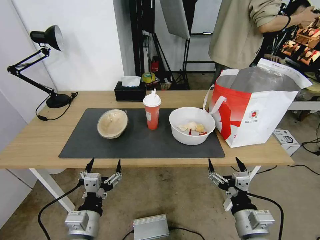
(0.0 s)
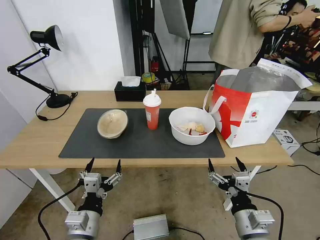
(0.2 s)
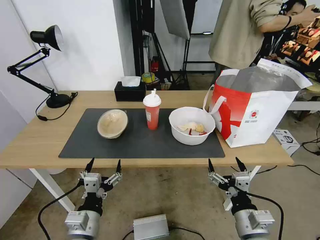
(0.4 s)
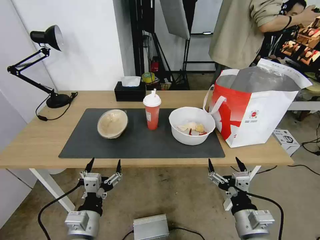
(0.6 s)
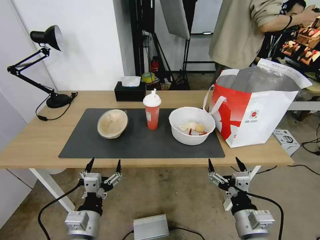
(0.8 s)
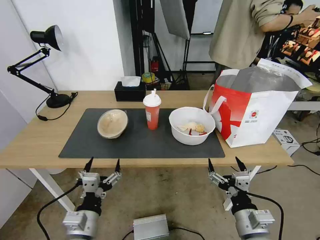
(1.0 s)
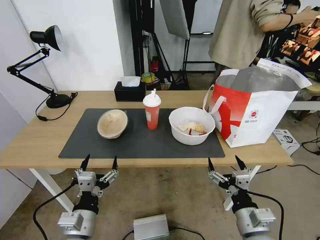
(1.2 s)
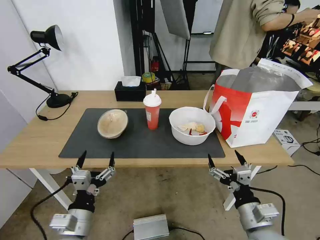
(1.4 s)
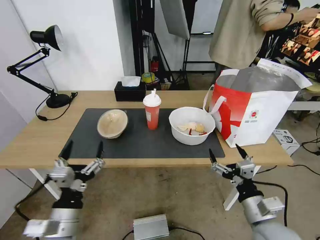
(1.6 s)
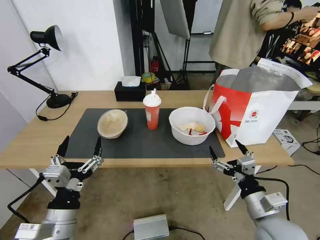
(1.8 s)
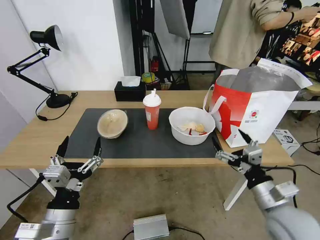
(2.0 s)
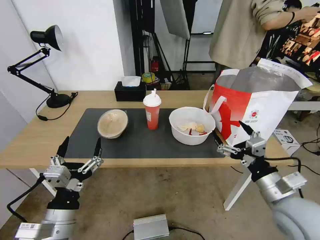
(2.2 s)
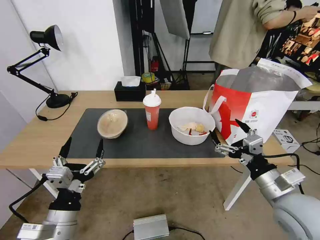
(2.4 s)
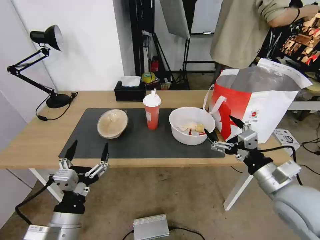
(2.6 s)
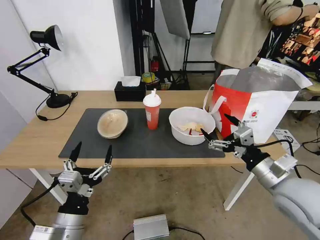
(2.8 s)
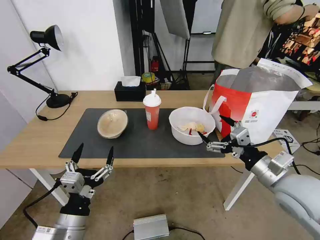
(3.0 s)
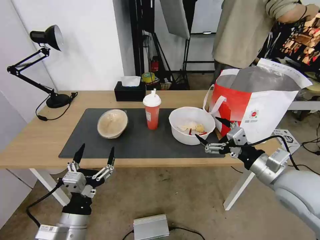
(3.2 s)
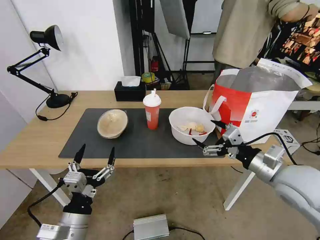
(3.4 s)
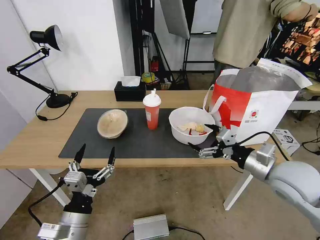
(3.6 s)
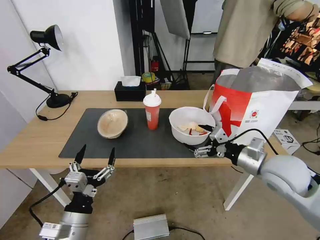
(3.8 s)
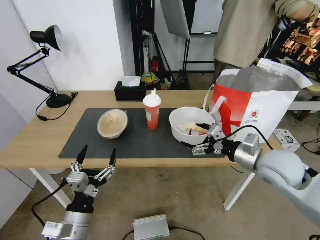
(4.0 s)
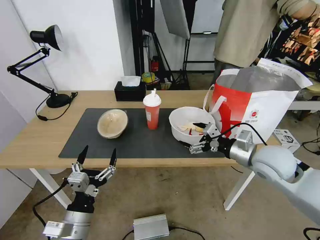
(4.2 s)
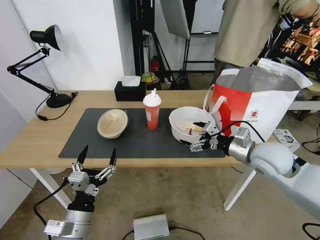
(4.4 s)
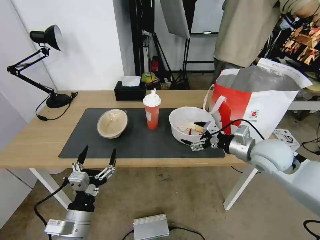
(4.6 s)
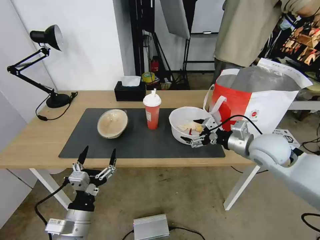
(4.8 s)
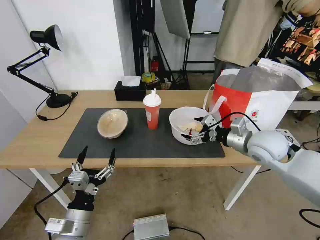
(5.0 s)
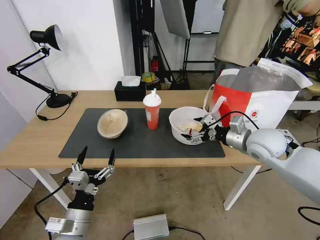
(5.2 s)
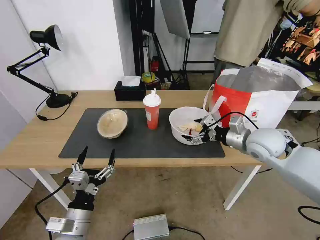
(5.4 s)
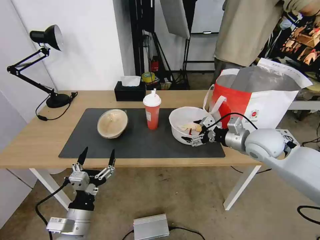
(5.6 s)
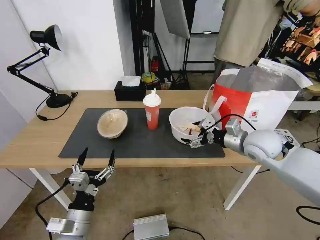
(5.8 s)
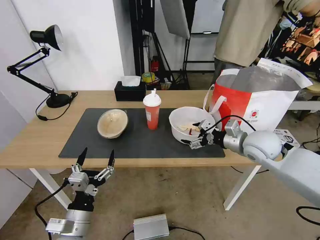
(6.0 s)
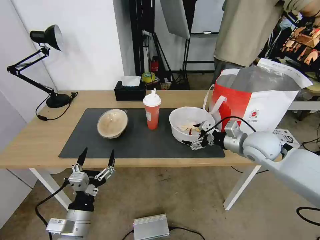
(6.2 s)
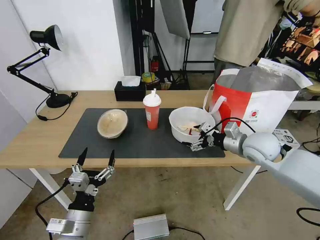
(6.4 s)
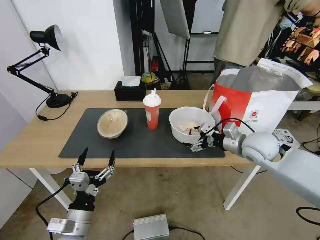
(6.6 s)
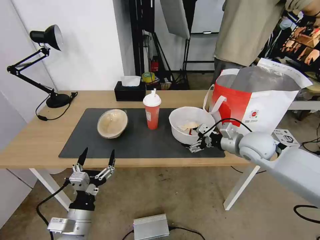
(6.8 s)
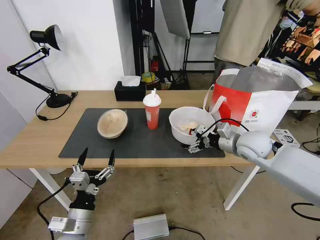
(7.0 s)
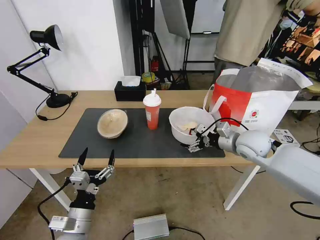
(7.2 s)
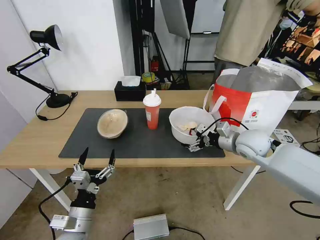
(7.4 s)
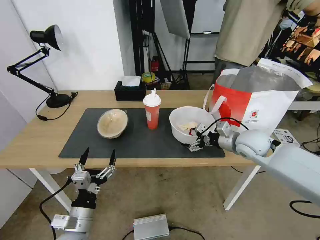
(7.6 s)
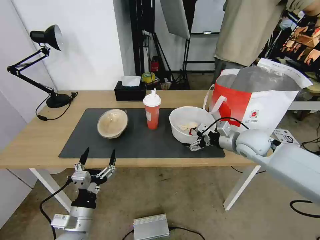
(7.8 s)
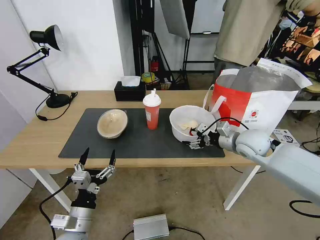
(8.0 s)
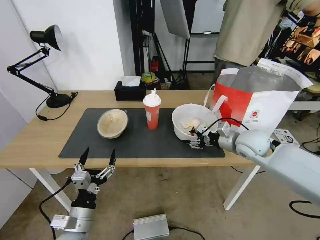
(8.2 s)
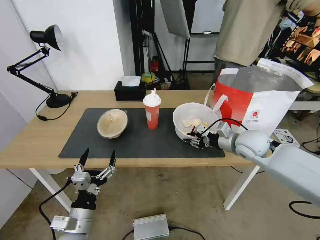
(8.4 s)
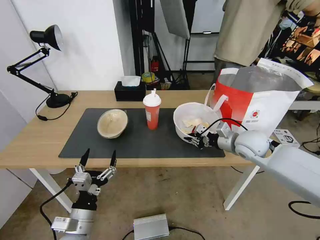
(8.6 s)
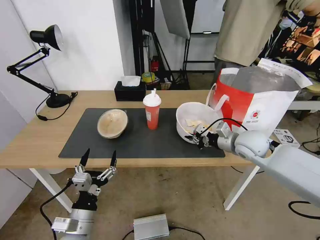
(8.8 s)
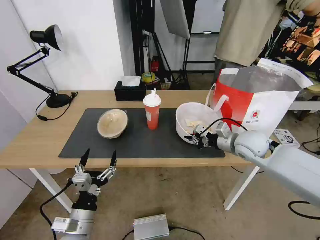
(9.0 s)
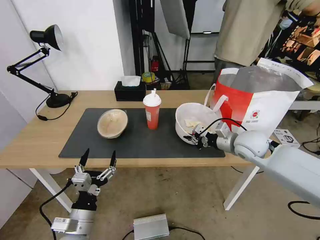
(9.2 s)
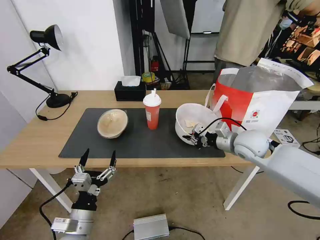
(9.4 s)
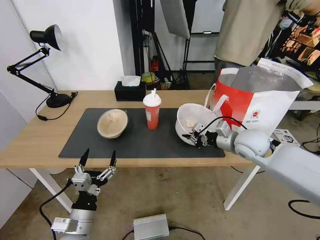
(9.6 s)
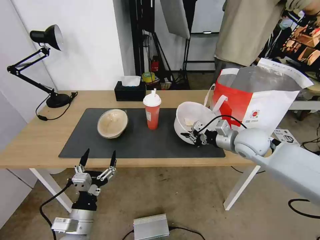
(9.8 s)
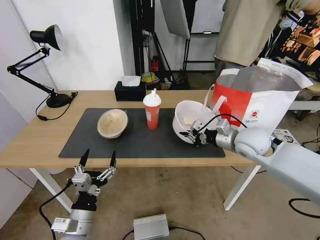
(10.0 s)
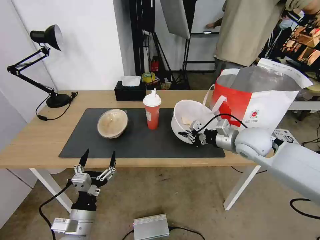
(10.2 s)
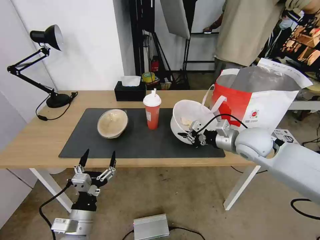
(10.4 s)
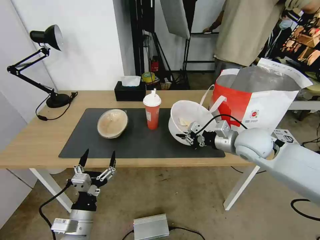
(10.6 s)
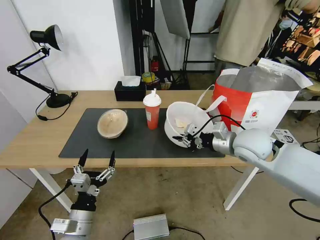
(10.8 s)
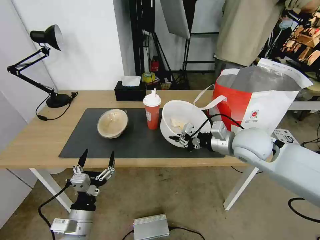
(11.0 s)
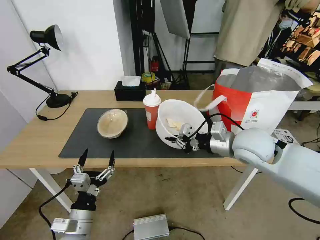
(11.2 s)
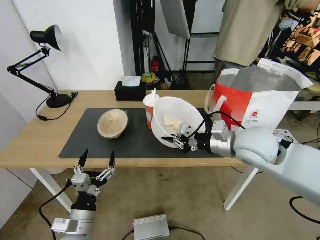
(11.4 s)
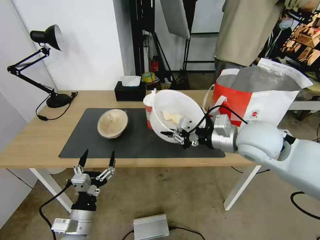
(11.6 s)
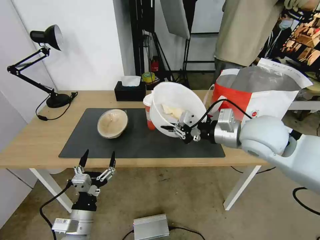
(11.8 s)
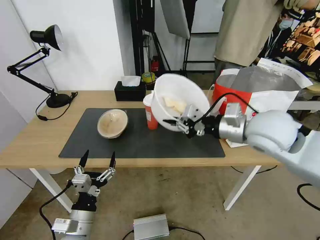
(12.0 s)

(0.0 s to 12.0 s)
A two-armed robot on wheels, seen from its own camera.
Task of the whole recording: Pick up the trash from the table and place it into the takeout bag.
1.6 s - 3.0 s: The right gripper shifts about 10 cm upward and forward.
3.0 s - 4.4 s: The right gripper heads forward, covering roughly 10 cm.
4.4 s - 6.0 s: There are only small adjustments of the grippers.
6.0 s - 7.6 s: The grippers move only a little.
7.6 s - 9.0 s: The right gripper closes its fingers.
9.0 s - 10.4 s: There are only small adjustments of the grippers.
10.4 s - 12.0 s: The right gripper is displaced upward by about 10 cm.

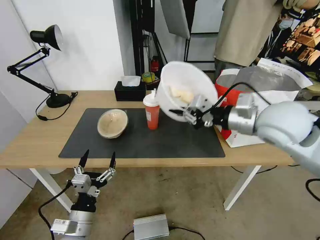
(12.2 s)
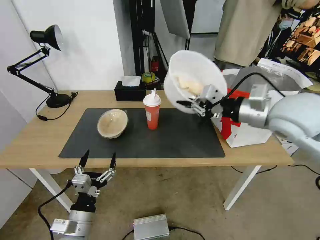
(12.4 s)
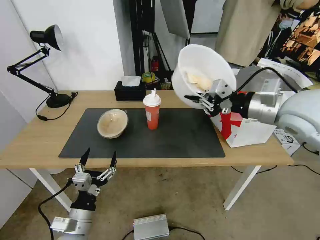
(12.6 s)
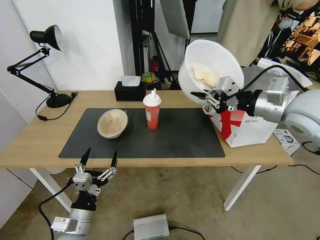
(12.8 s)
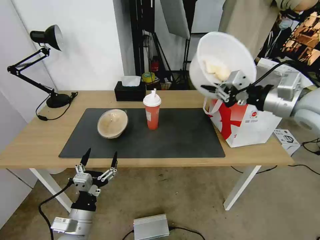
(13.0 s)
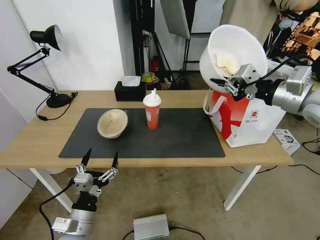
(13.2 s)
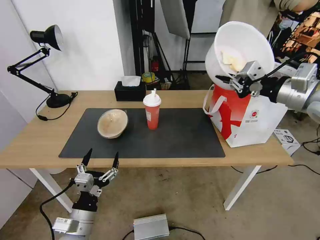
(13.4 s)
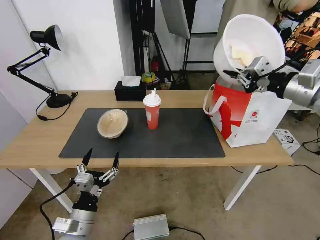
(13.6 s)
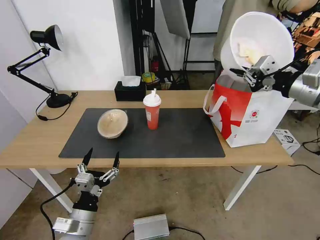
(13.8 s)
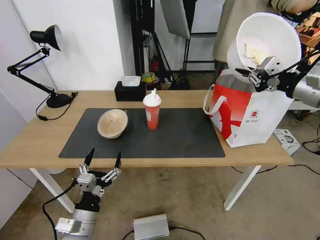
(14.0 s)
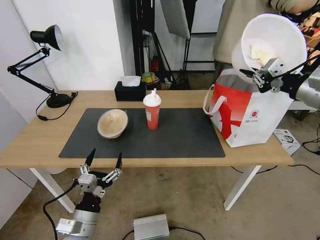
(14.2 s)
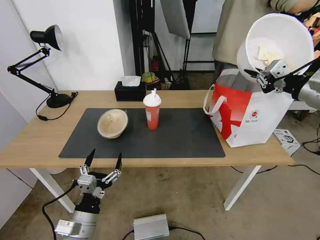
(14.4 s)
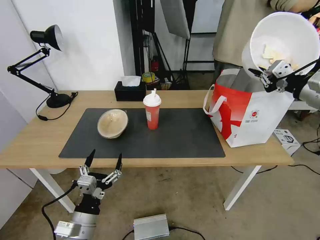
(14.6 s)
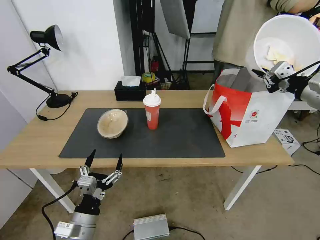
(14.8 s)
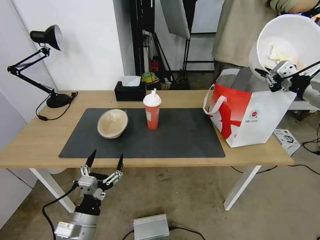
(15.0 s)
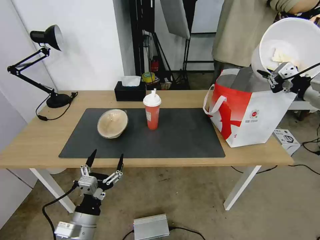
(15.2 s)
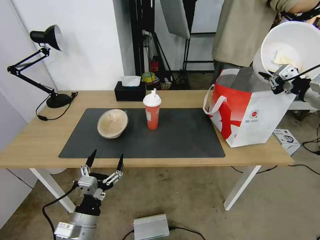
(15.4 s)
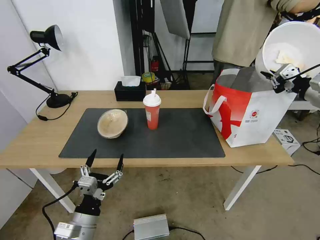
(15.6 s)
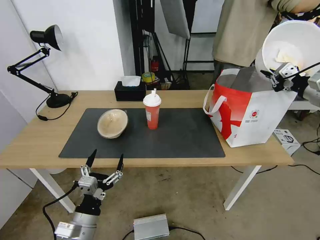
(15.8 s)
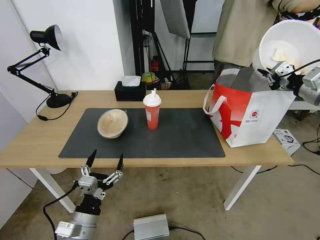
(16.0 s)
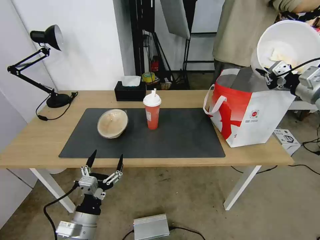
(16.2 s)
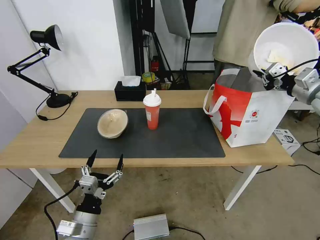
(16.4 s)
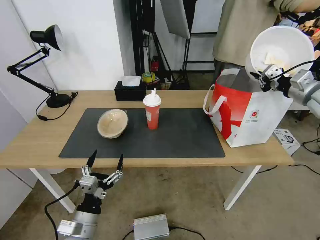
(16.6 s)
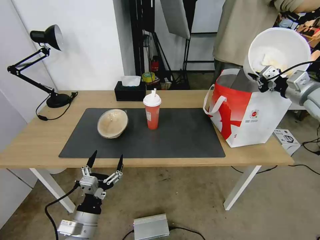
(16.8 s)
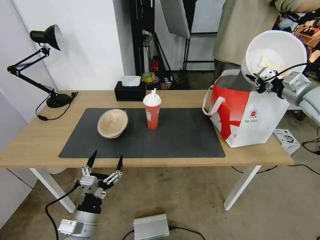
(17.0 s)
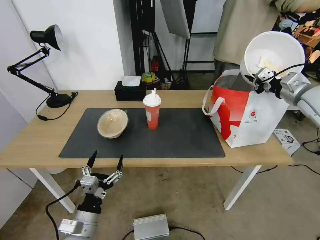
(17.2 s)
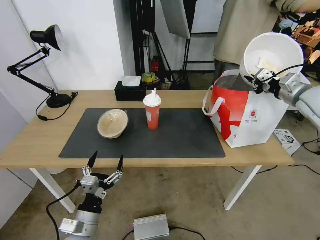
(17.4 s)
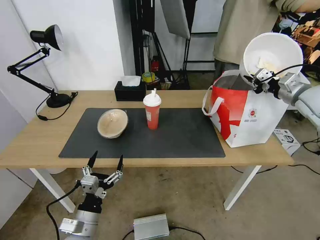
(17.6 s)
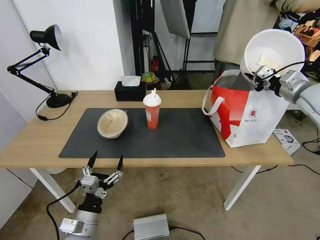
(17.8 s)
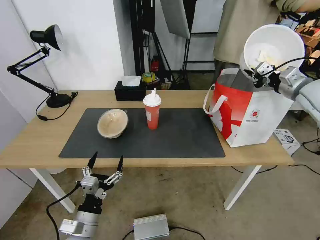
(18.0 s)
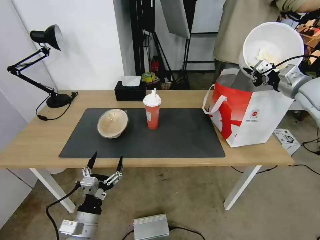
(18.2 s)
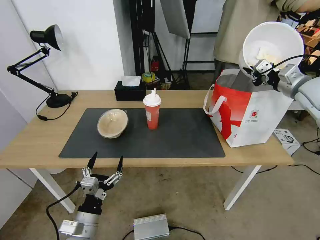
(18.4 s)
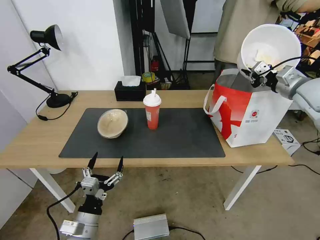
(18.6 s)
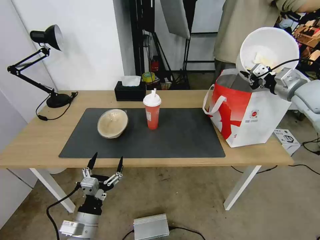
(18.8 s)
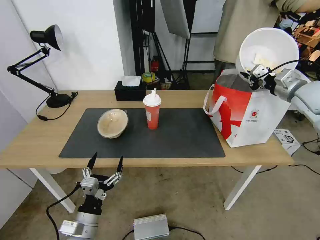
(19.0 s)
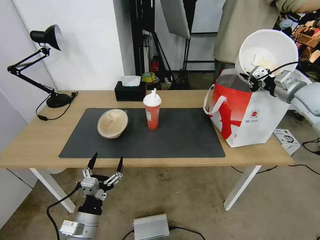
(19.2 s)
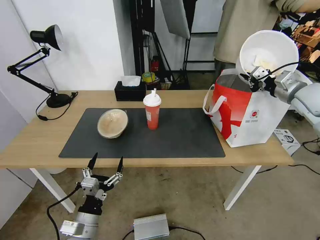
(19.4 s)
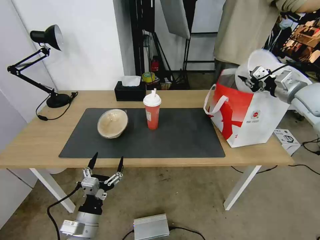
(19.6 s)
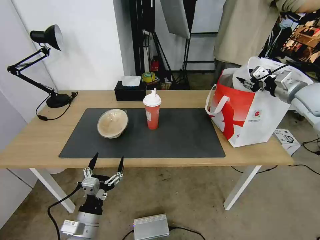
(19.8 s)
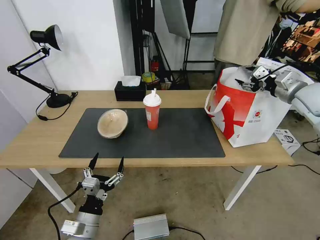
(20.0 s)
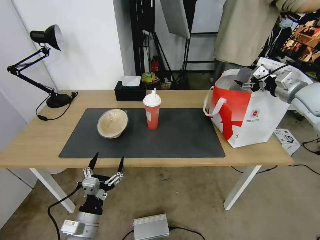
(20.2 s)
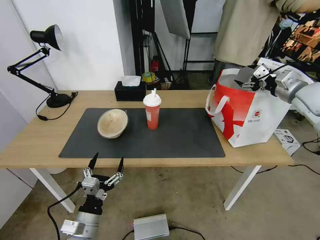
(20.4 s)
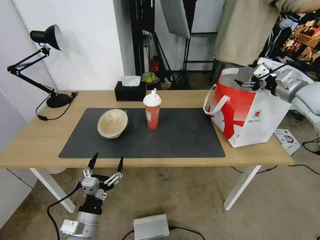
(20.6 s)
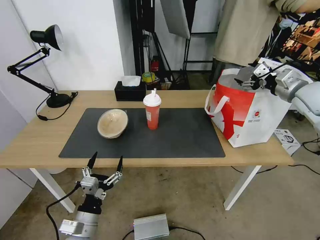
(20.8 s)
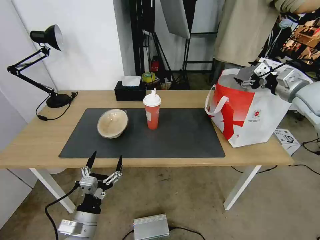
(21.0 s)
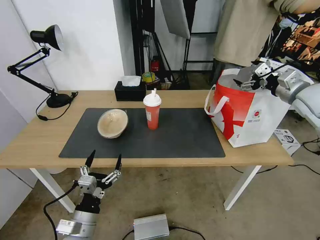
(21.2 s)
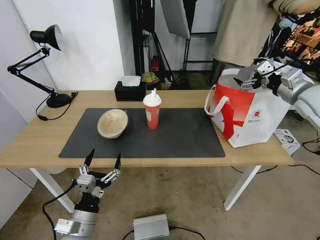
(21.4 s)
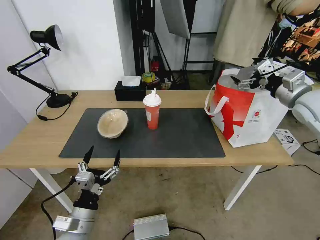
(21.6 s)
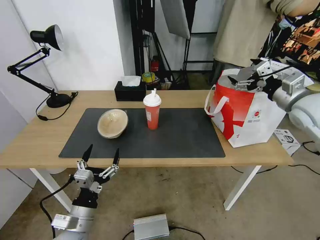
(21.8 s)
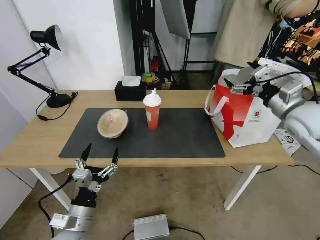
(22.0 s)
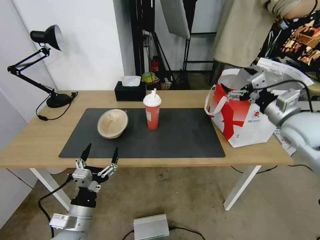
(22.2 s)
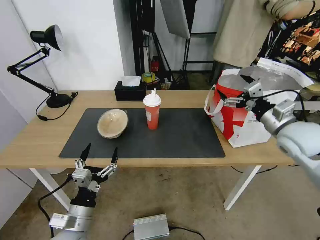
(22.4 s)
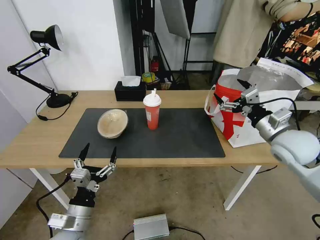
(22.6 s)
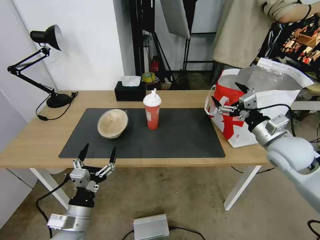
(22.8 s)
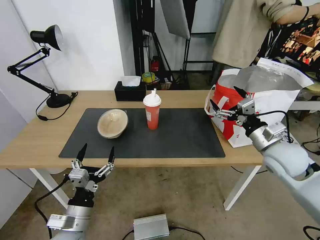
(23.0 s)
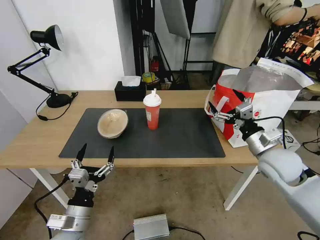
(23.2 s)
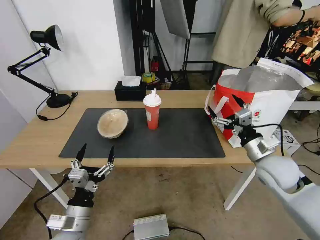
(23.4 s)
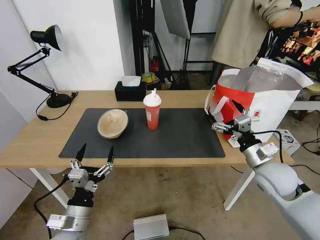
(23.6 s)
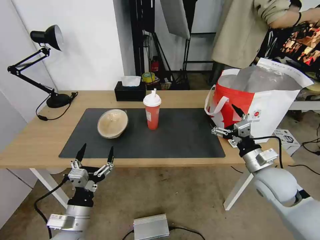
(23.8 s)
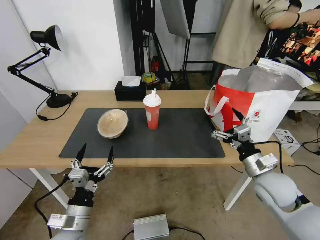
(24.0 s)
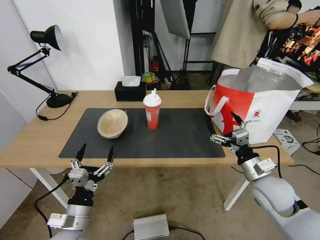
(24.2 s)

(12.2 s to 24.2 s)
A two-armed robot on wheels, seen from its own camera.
Task of the whole recording: Pick up the trash from the table and place it into the takeout bag.
12.2 s - 13.8 s: The right gripper heads to the right and upward, covering roughly 15 cm.
13.8 s - 15.2 s: The right gripper travels to the right by approximately 5 cm.
15.2 s - 16.6 s: The right gripper is displaced forward by approximately 5 cm.
16.6 s - 18.2 s: The grippers stay close to where they were, moving slightly.
18.2 s - 19.8 s: The right gripper opens its fingers.
19.8 s - 21.2 s: The right gripper opens up.
21.2 s - 22.6 s: The right gripper moves backward, downward and to the left, approximately 15 cm.
22.6 s - 24.2 s: The right gripper goes about 15 cm downward and backward.
